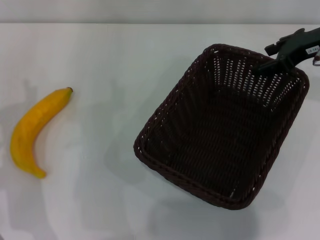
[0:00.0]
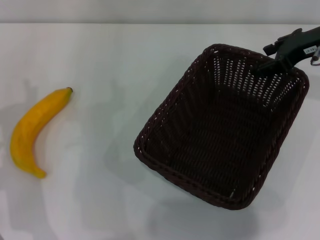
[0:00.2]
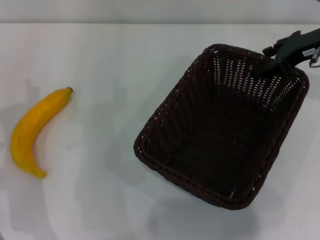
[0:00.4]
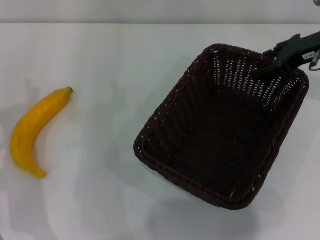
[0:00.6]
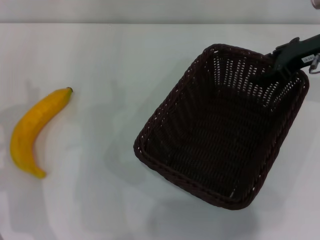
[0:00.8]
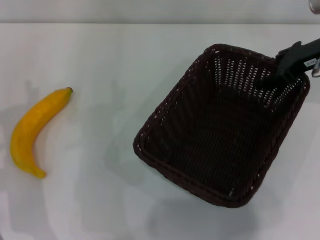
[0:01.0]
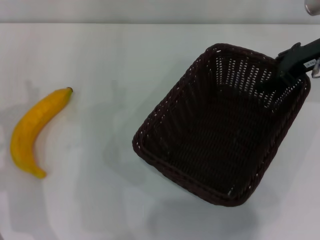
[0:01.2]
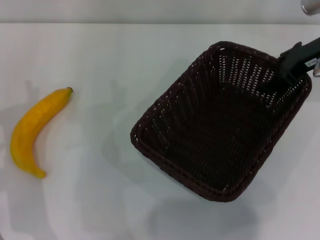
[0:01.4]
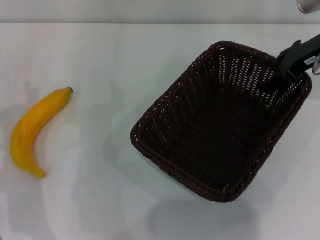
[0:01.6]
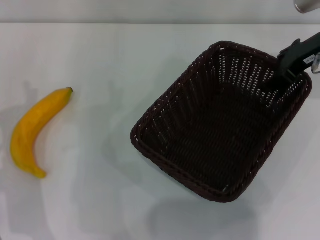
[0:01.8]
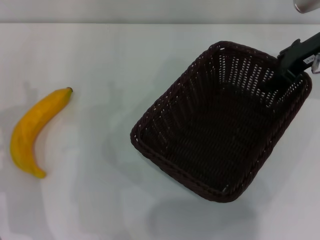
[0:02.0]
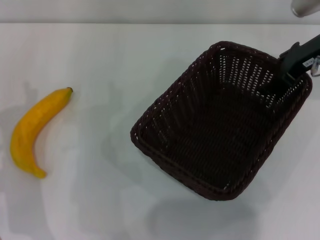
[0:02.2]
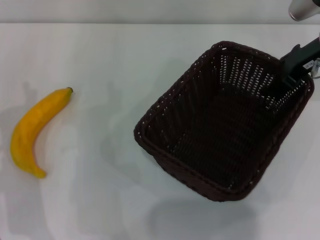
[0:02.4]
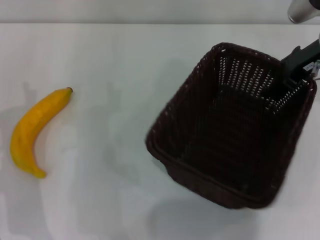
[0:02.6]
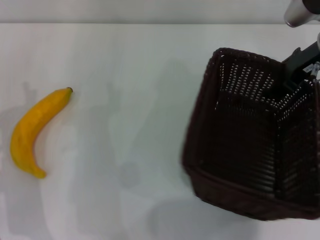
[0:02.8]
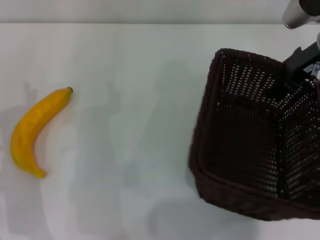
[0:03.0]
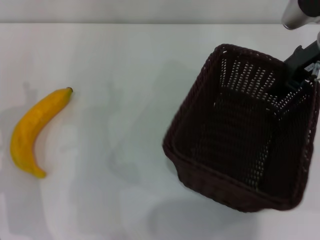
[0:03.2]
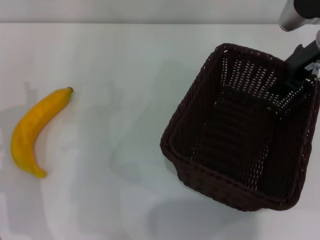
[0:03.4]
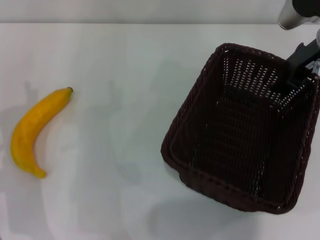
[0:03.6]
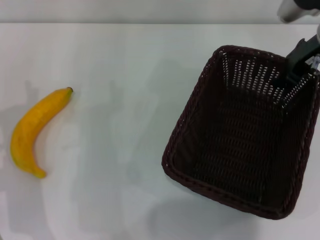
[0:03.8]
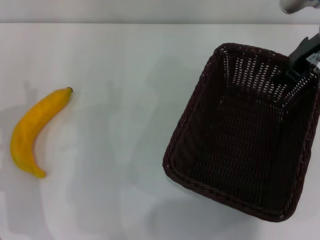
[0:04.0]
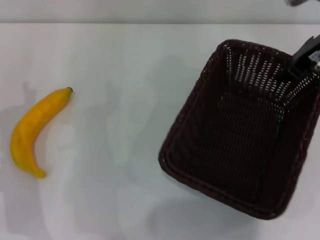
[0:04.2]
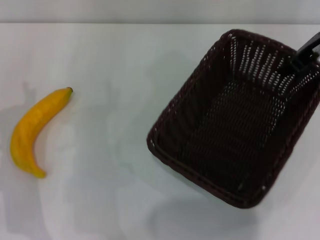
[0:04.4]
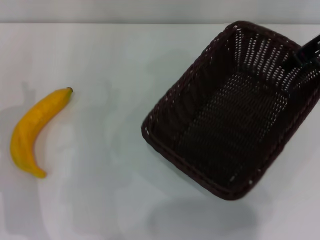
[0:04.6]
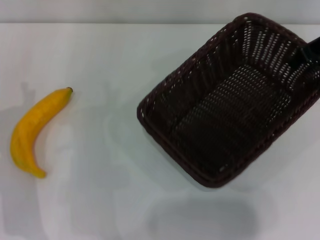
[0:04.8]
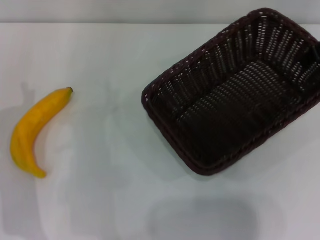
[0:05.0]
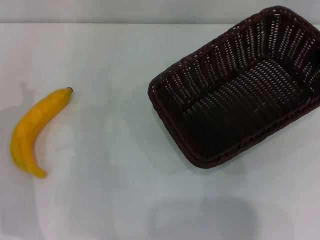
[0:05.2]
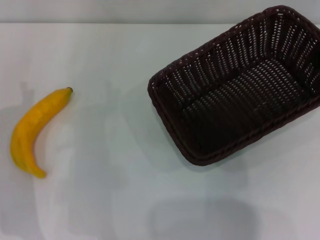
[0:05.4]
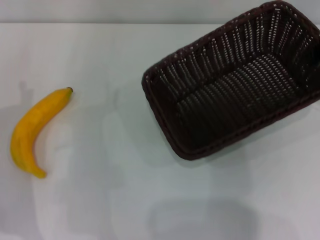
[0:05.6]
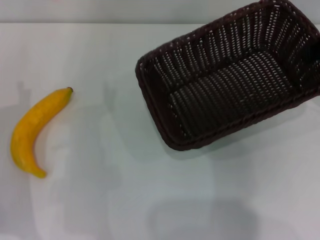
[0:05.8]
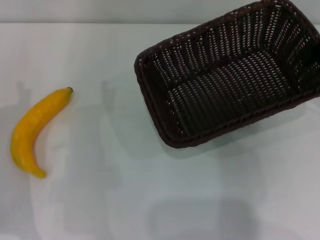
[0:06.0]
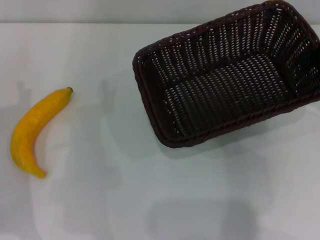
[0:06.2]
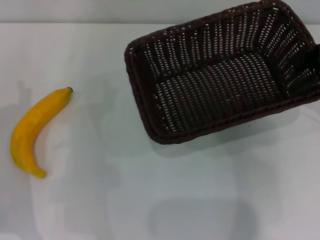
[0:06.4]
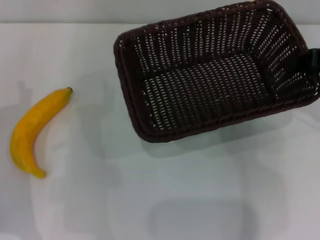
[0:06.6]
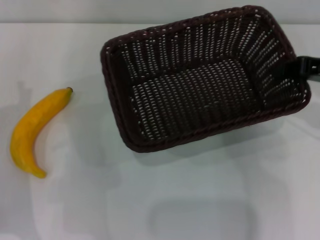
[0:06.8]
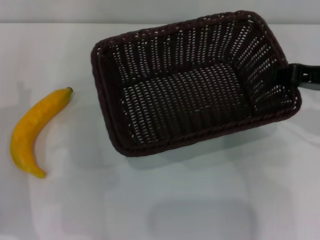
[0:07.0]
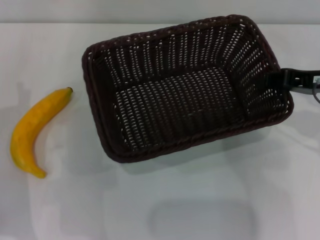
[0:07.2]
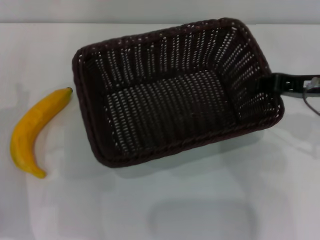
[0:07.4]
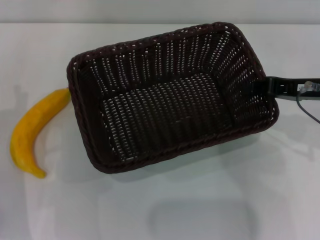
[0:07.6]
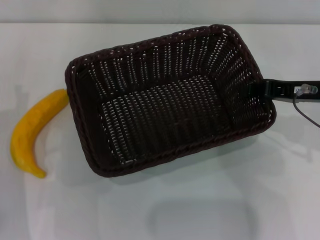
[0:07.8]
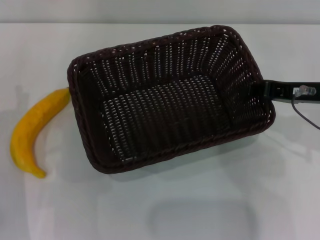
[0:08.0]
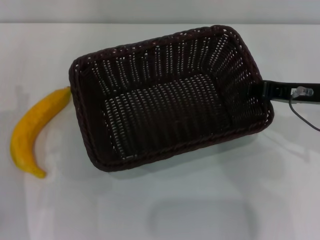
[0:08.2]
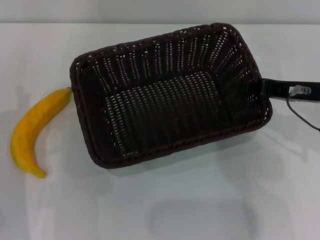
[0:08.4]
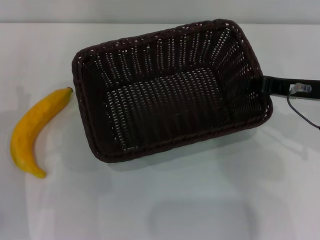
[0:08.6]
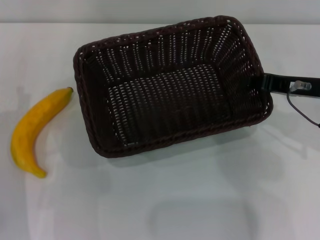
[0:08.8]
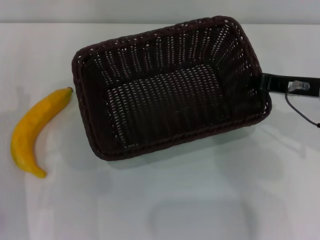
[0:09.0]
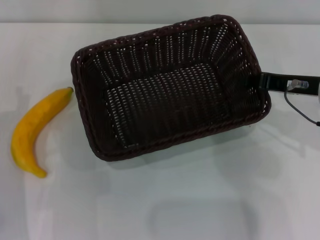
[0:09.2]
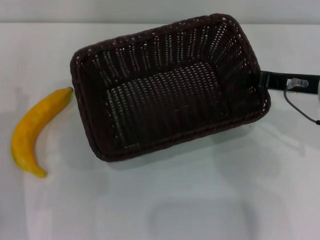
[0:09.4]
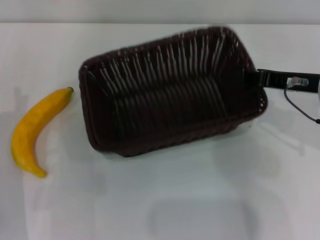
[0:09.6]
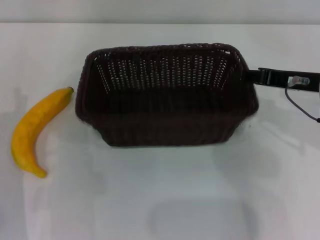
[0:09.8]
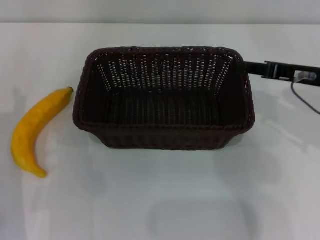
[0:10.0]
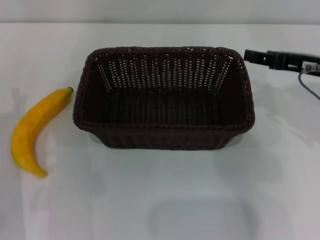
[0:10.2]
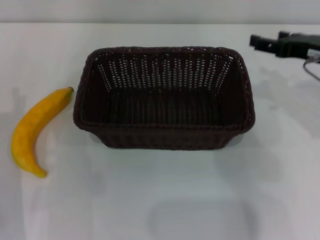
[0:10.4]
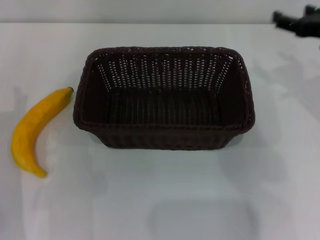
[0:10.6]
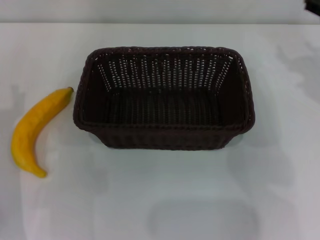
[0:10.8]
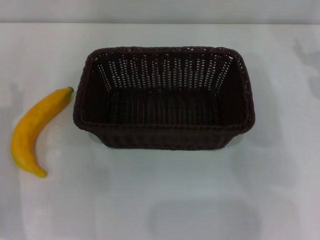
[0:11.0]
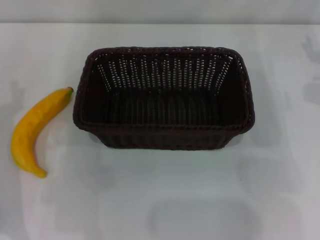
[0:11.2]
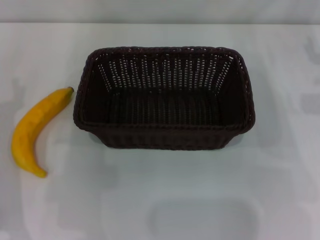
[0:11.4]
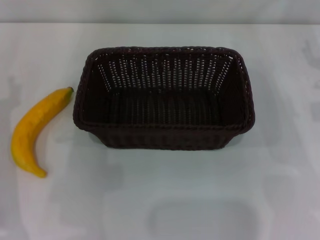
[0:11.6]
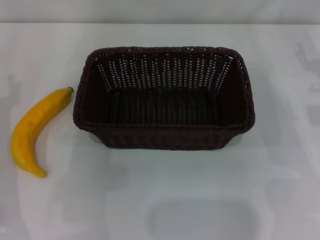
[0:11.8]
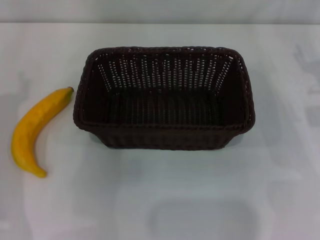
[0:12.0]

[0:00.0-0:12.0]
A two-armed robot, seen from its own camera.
Step, 0:00.0 to 0:05.0: Pick up the dark basket with the right gripper.
Step, 0:05.2 to 0:10.2: Place the dark basket in the center of view with the right gripper.
0:00.0 to 0:01.6: The grippers stay close to where they were, moving slightly.
0:03.0 to 0:04.4: The right gripper closes its fingers.
0:04.4 to 0:06.0: The right gripper is displaced to the right and backward by about 10 cm.
0:06.0 to 0:07.6: The right gripper shifts about 5 cm downward.
0:07.6 to 0:09.0: There are only small adjustments of the grippers.
0:09.0 to 0:10.4: The right gripper opens up.
0:10.4 to 0:12.0: The right gripper goes about 5 cm downward.

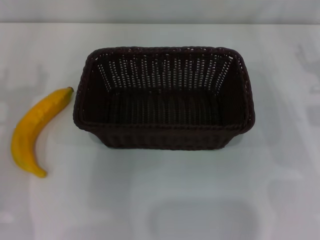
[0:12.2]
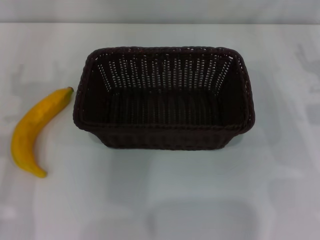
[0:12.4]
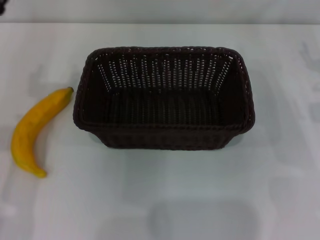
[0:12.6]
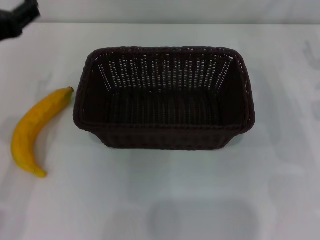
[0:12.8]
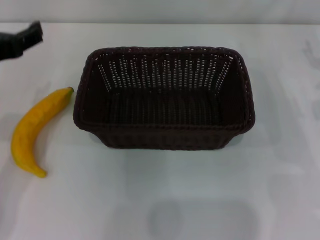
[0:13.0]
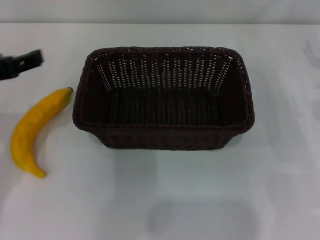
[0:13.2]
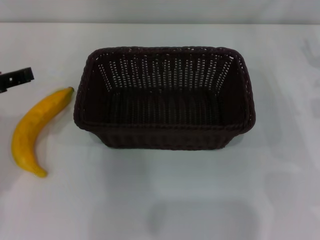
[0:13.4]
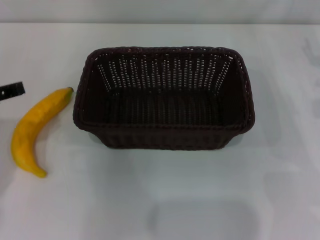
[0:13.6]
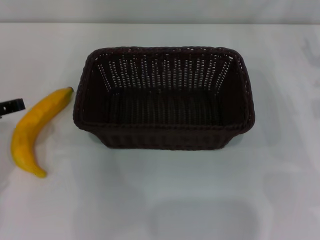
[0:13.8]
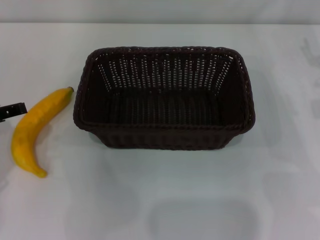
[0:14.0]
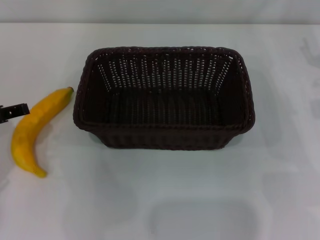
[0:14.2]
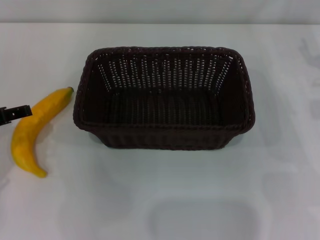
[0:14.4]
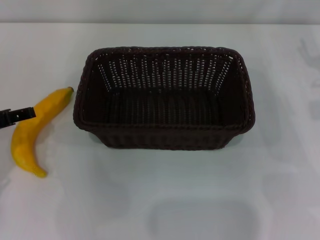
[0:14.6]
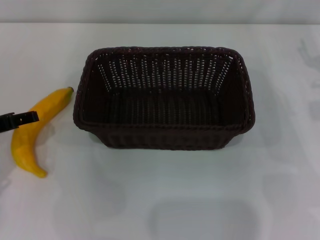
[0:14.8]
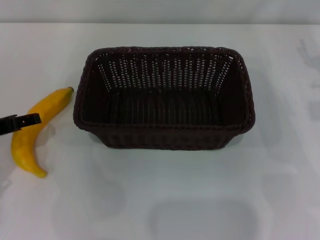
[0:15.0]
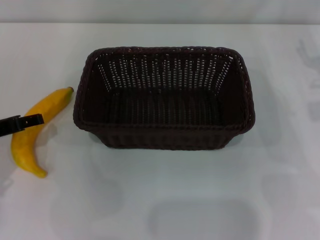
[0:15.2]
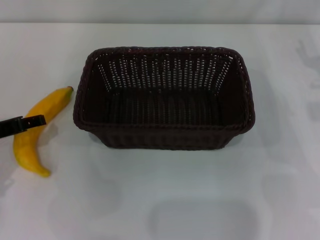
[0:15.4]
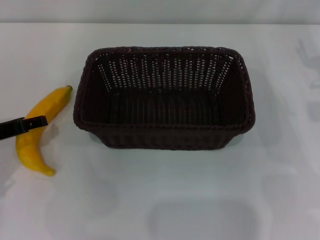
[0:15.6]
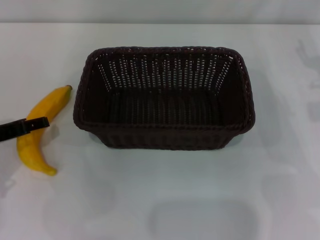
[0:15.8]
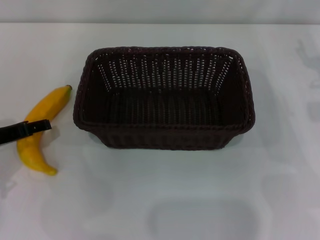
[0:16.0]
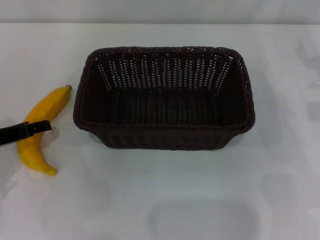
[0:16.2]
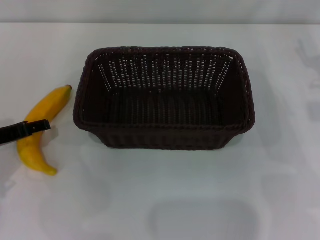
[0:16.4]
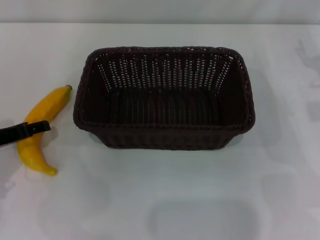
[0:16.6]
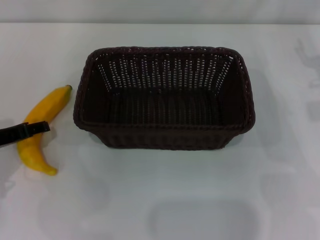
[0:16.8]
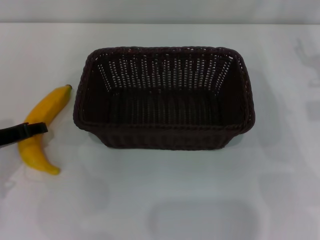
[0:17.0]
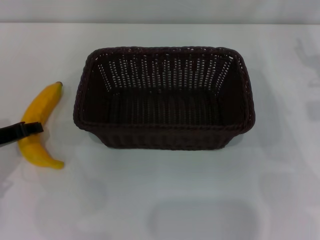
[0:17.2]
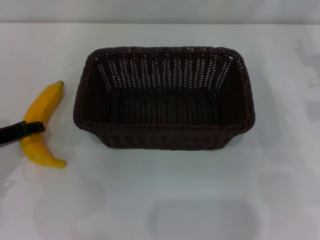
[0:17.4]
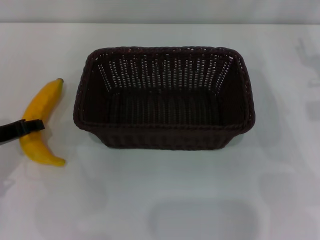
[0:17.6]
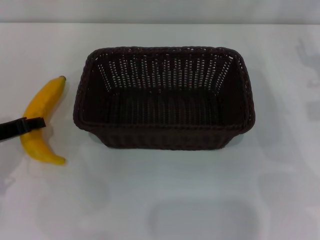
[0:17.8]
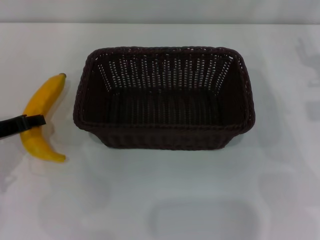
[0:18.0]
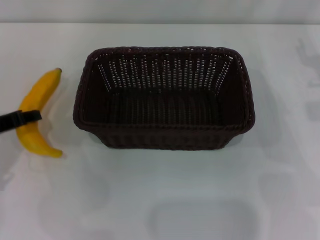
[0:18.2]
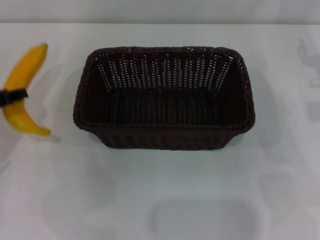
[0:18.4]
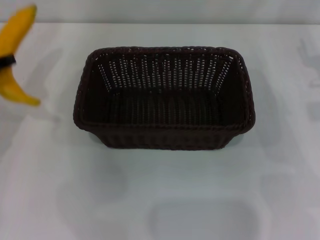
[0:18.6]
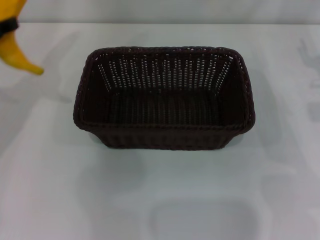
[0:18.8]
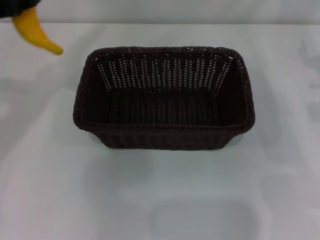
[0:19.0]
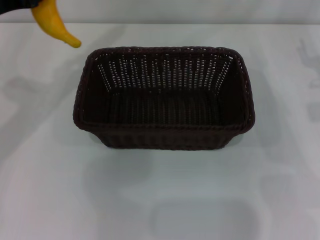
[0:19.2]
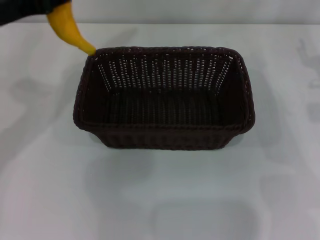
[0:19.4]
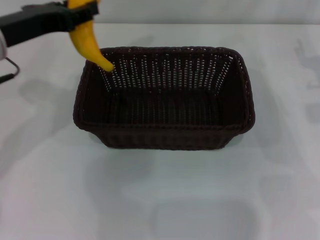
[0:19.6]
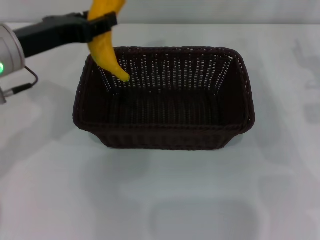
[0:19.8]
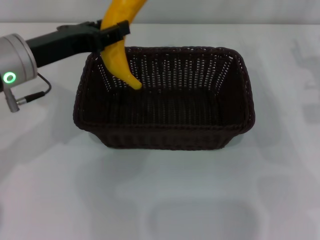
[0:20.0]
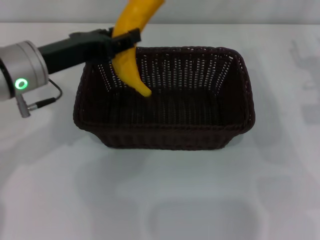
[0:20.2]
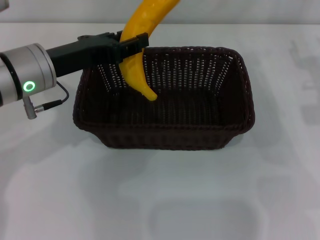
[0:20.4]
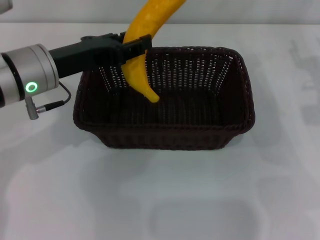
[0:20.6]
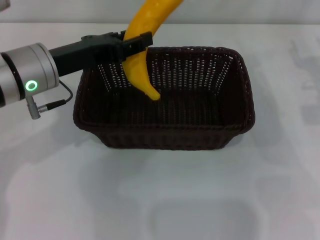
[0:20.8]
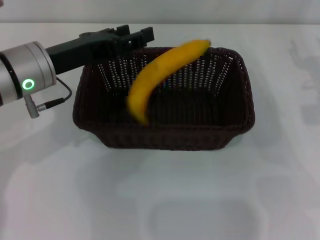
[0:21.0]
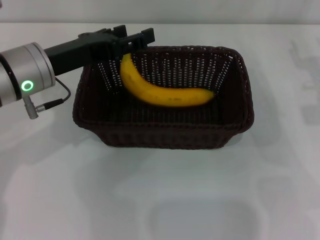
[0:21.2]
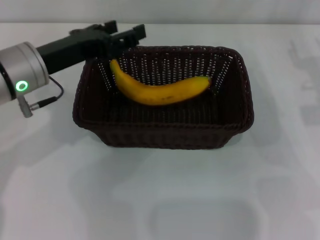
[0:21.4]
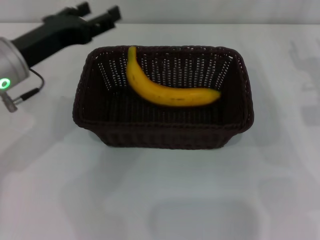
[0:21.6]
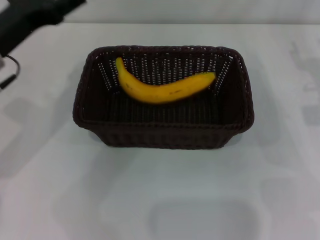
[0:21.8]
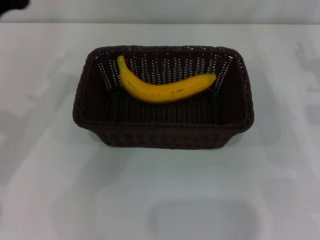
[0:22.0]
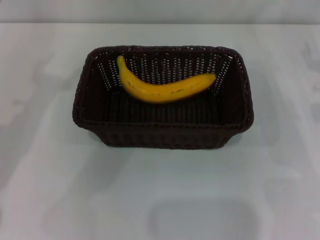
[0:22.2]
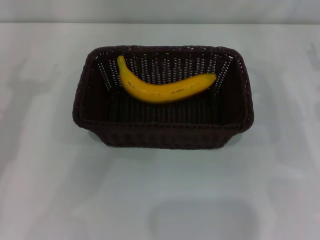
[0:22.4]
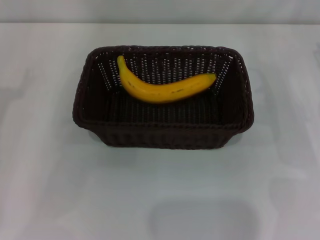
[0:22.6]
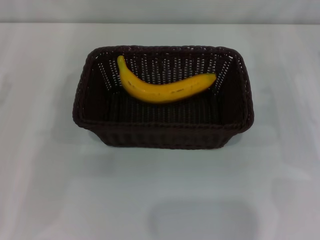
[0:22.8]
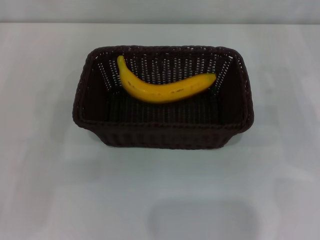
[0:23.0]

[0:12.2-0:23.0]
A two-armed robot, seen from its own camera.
Step, 0:12.2 to 0:18.4: Pick up the banana with the left gripper.
Step, 0:18.6 to 0:21.0: Place the banana into the dark basket with the left gripper.
0:13.8 to 0:15.2: The left gripper moves downward, about 5 cm.
0:15.2 to 0:16.8: There are only small adjustments of the grippers.
0:16.8 to 0:18.4: The left gripper closes its fingers.
0:18.4 to 0:20.0: The left gripper goes some 10 cm to the right.
0:20.0 to 0:21.4: The left gripper opens up.
0:21.4 to 0:23.0: The left gripper goes roughly 20 cm to the left and backward.
